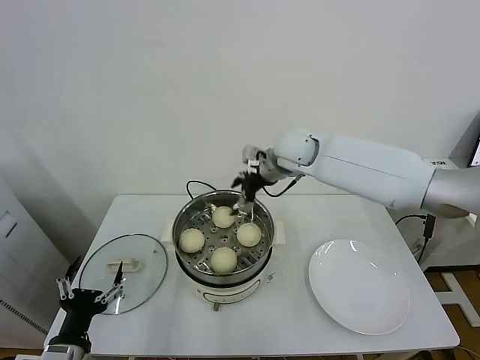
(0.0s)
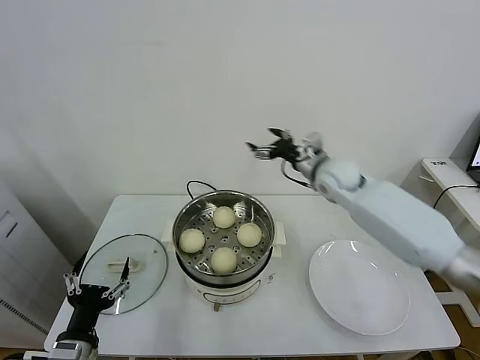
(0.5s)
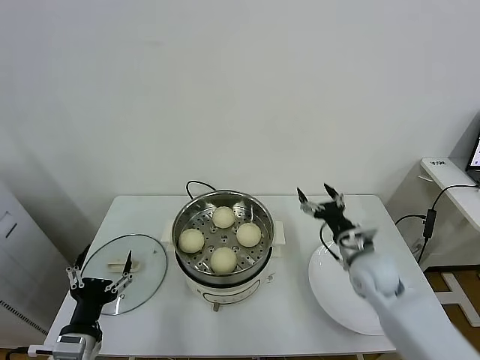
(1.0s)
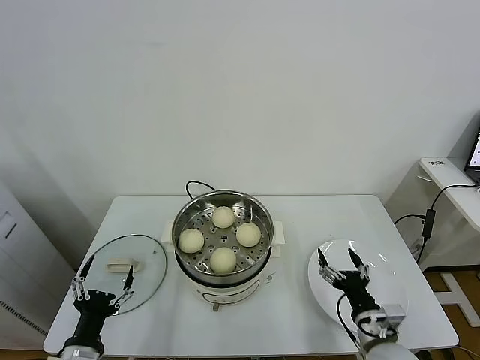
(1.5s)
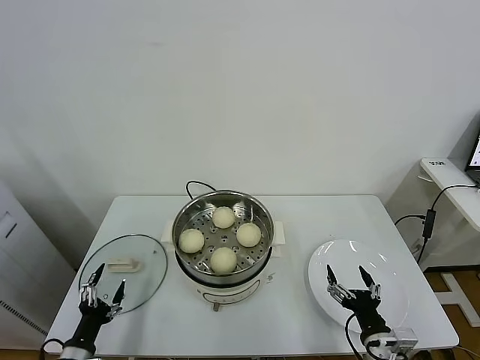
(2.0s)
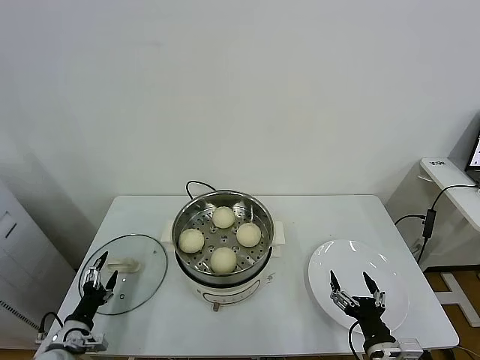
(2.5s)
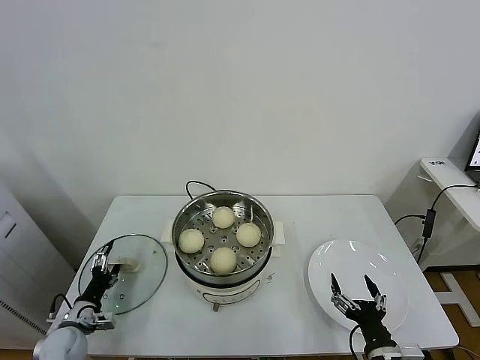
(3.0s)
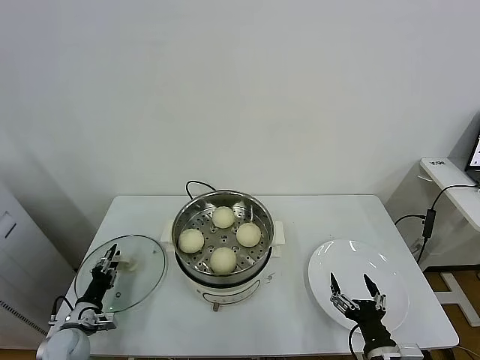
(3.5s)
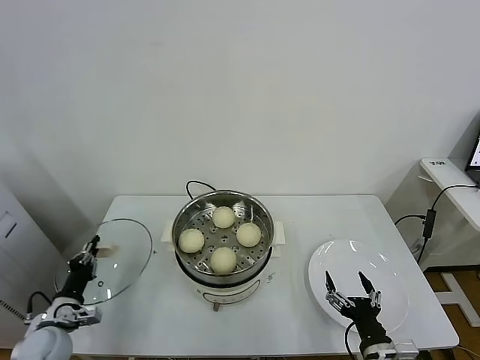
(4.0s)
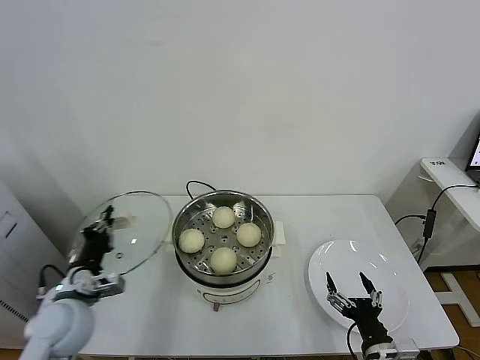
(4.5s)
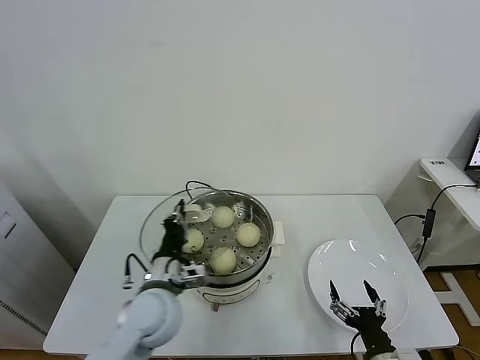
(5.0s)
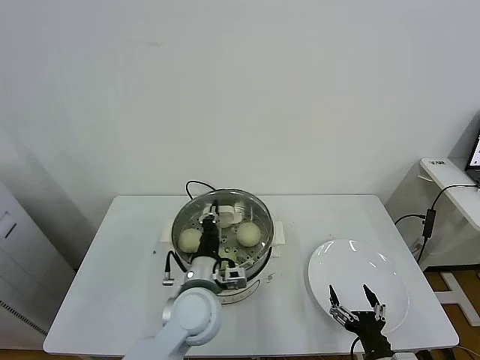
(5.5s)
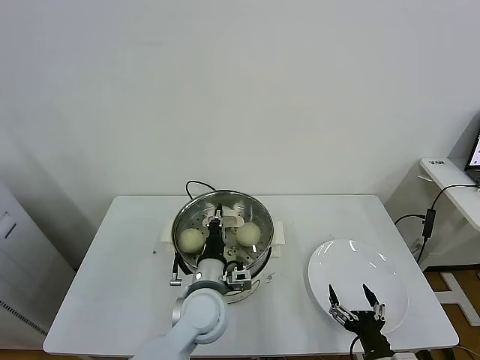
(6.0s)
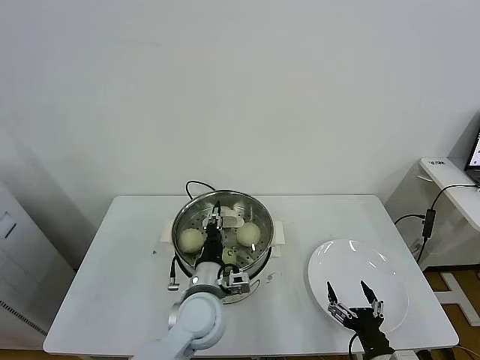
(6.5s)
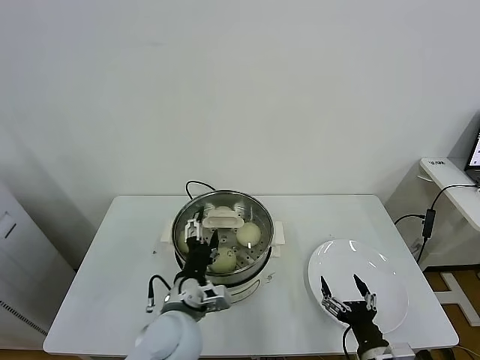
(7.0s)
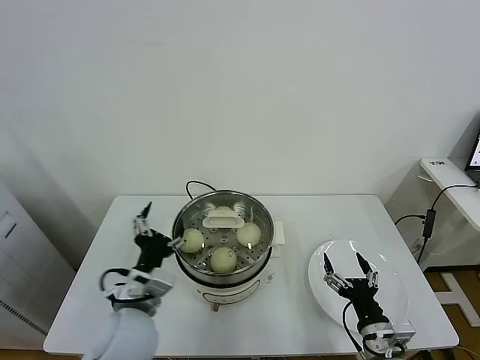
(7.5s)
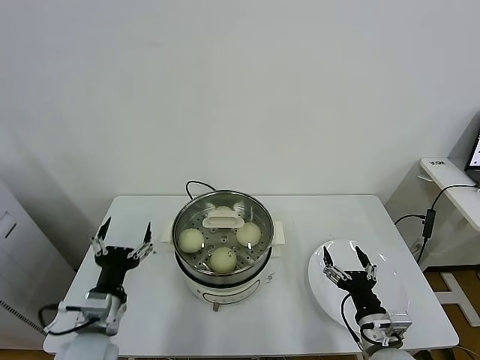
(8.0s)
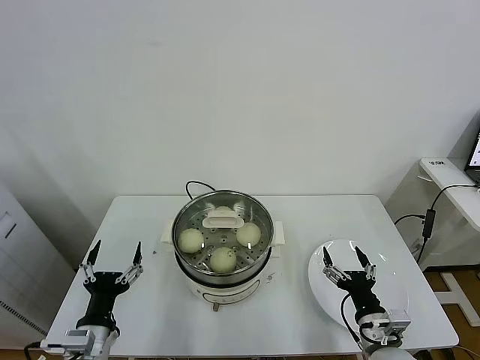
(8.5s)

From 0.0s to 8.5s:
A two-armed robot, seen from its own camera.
Task of the whole recording: take steamed baozi put them in steamer.
Step, from 0.0s to 3.5s: Grasp the pot lid with left gripper.
Step, from 4.0s to 7.0s: Place the pot lid on the steamer with left gripper.
From 0.0s to 2.0s: The left gripper goes approximately 10 cm downward, while the right gripper moves backward, downward and to the right, roughly 50 cm.
From 2.0s to 4.0s: The left gripper is displaced forward and to the left by about 10 cm, and closes its fingers.
From 4.0s to 6.5s: The left gripper goes approximately 35 cm to the right.
From 6.5s to 8.5s: The right gripper heads forward, covering about 5 cm, while the left gripper heads to the left and backward, covering roughly 25 cm, and opens up.
